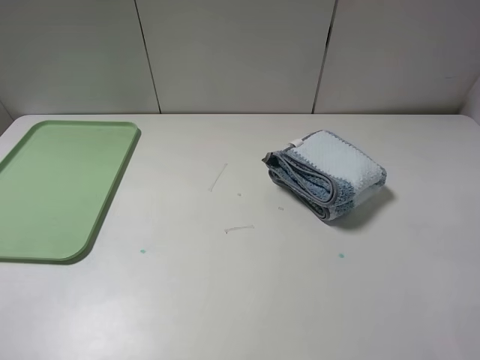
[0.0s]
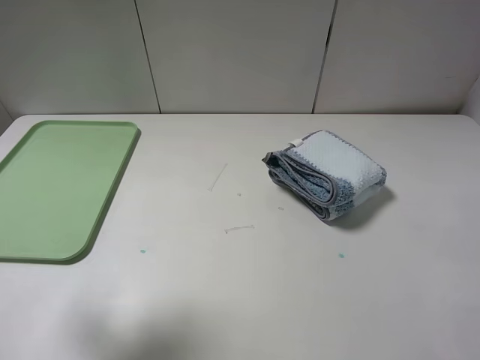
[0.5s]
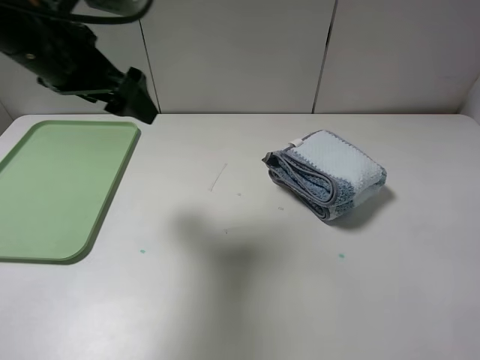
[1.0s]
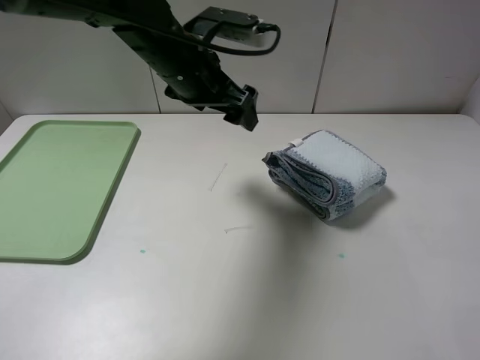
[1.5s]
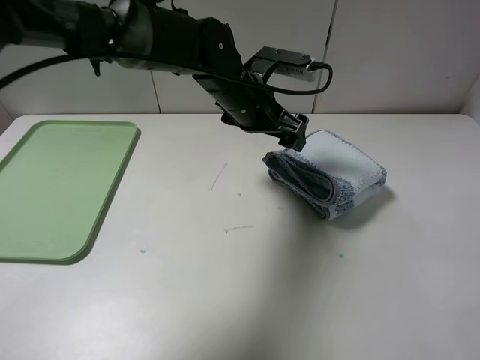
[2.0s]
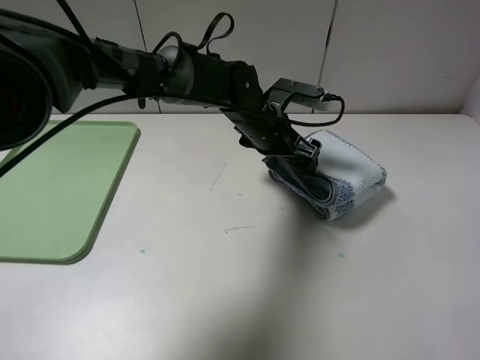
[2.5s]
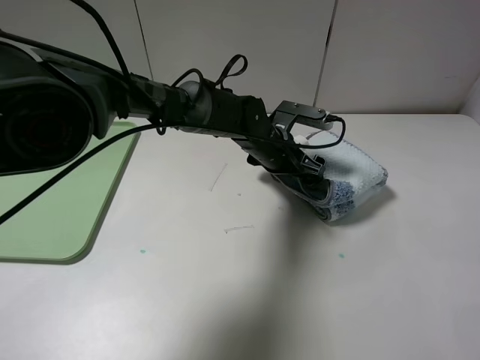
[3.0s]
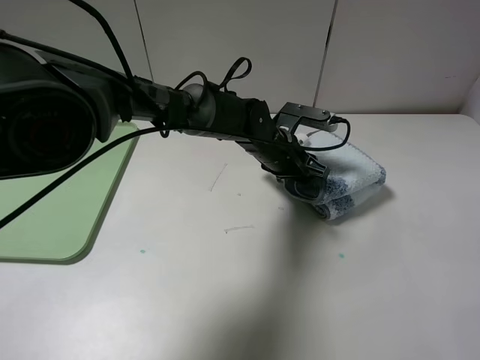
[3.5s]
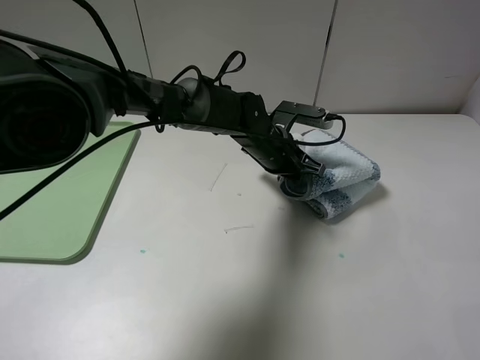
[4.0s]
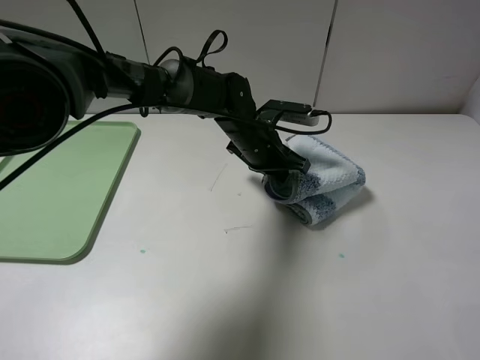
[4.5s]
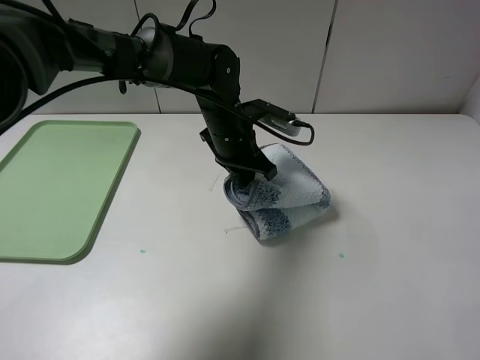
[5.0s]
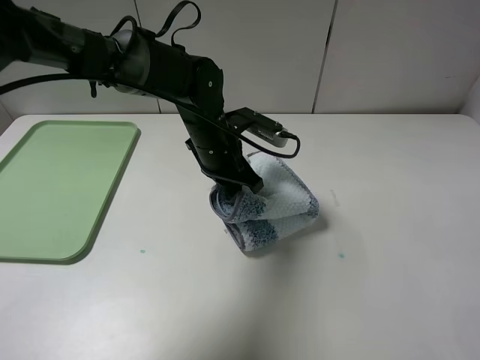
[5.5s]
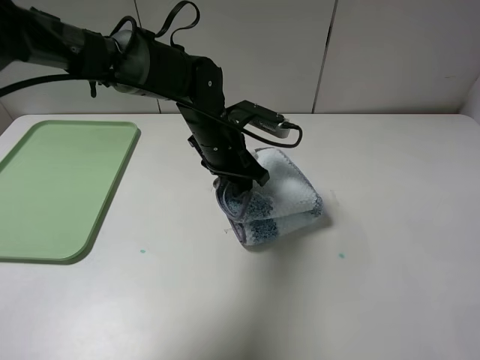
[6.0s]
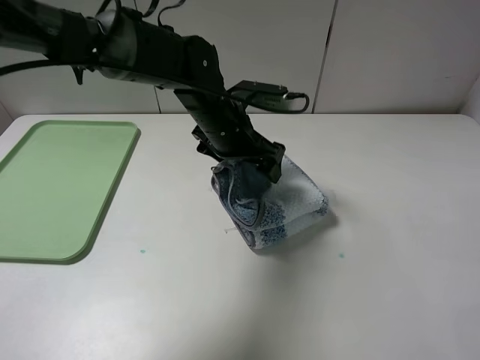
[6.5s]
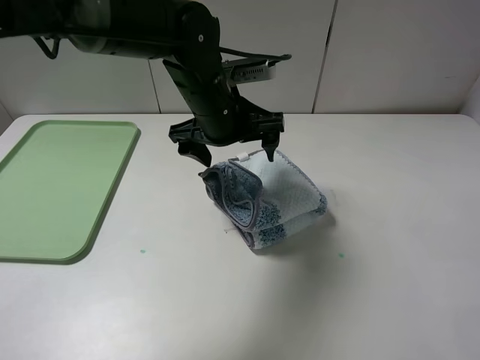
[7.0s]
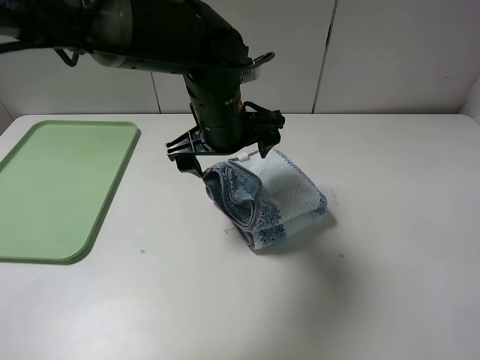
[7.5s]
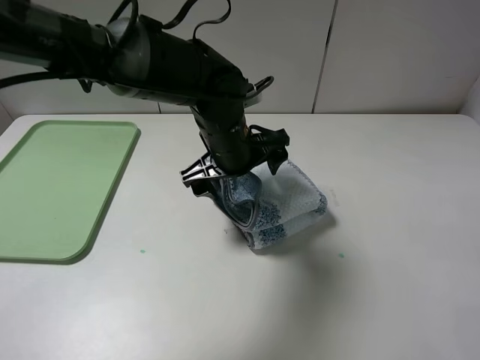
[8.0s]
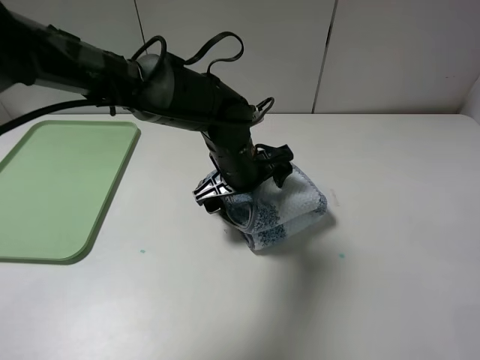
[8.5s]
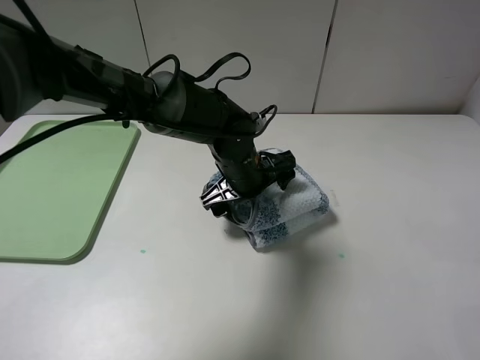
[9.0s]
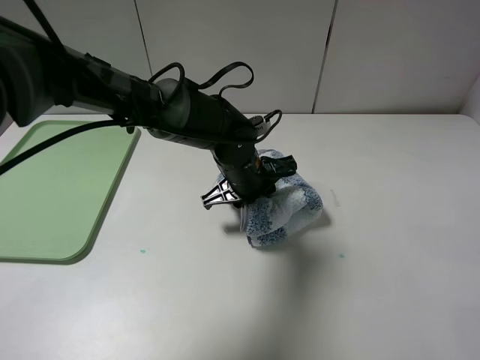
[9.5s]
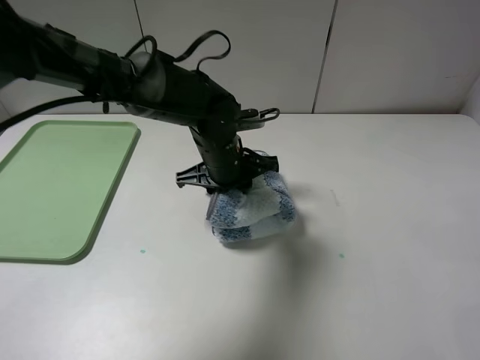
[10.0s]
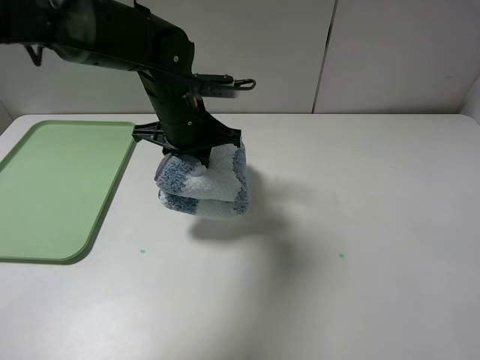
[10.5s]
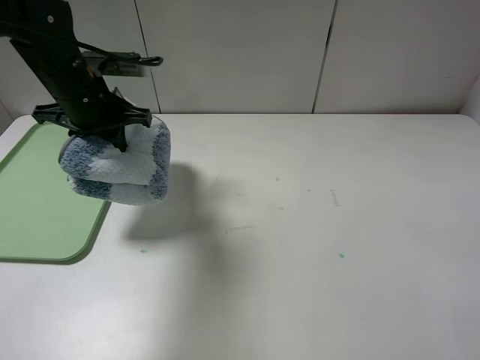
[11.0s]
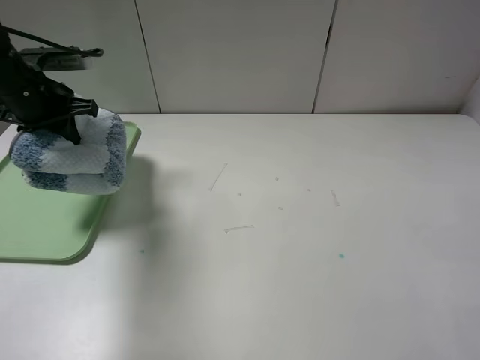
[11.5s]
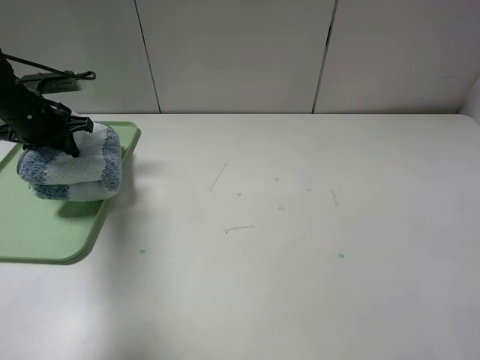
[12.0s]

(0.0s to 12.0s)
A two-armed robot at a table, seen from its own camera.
Step, 0.0s - 9.5s: Grasp the blue white towel with the left gripper.
0.0s - 2.0s: The left gripper goes approximately 50 cm forward and to the right.
2.0s - 4.0s: The left gripper shifts roughly 10 cm downward, and closes up.
4.0s - 6.0s: The left gripper is displaced to the left by some 5 cm, and opens up.
6.0s - 8.0s: The left gripper changes place by approximately 5 cm, and opens its fingers.
8.0s - 10.0s: The left gripper closes.
10.0s - 12.0s: The left gripper travels to the left by roughly 30 cm.

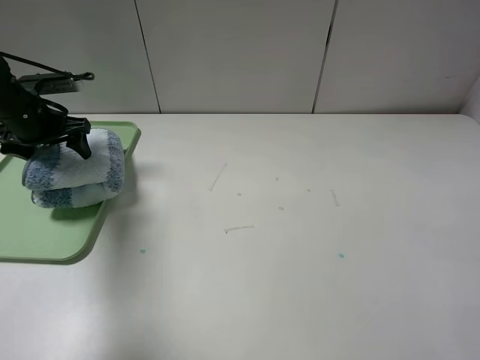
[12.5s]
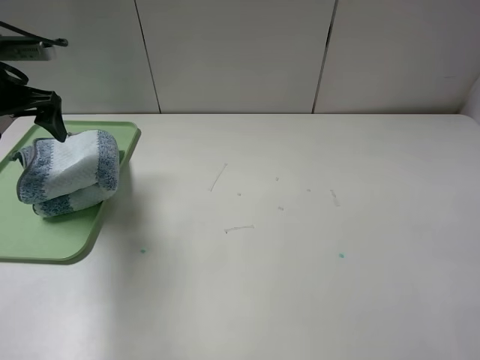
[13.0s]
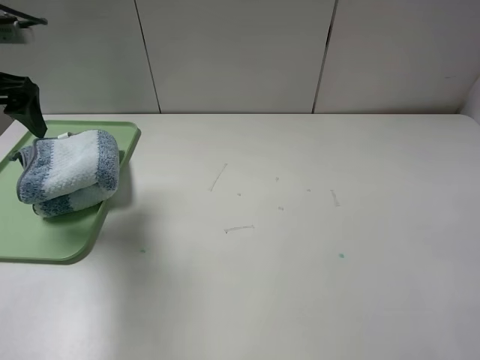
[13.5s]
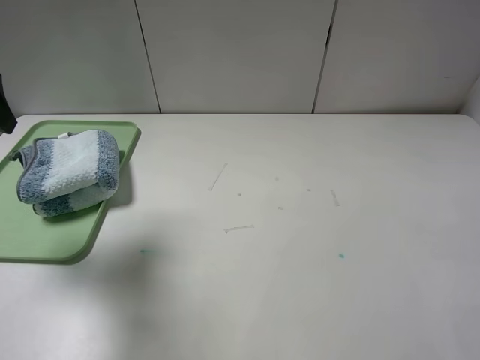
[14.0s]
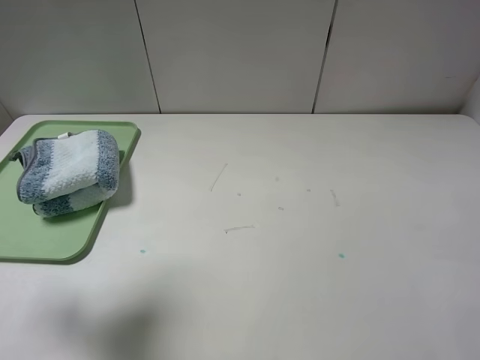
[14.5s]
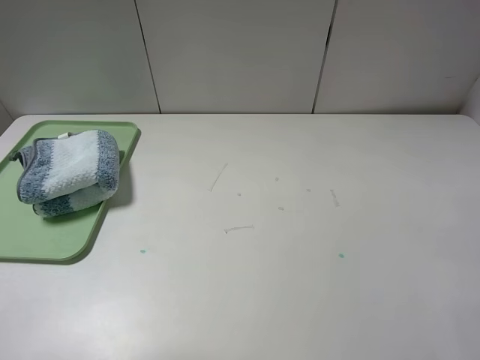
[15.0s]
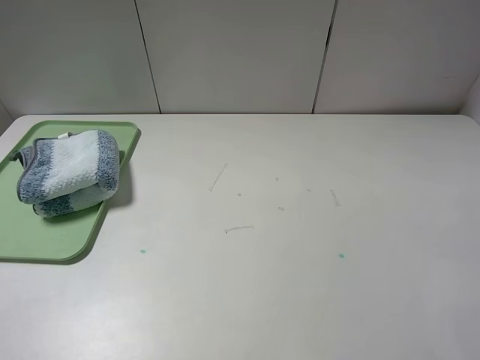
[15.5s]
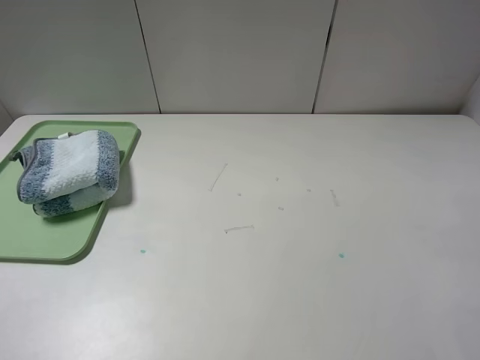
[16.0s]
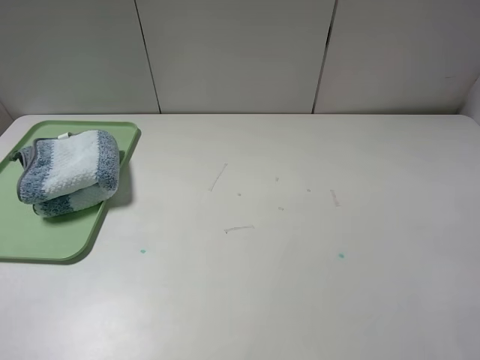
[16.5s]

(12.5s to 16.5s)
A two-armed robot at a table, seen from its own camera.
12.5s - 14.5s: The left gripper heads backward and upward, covering about 25 cm.
14.5s - 16.5s: The left gripper travels backward by about 15 cm.
